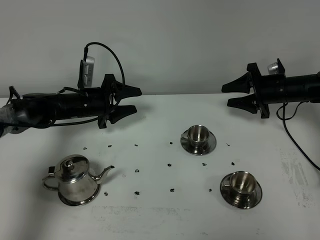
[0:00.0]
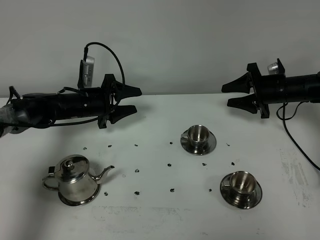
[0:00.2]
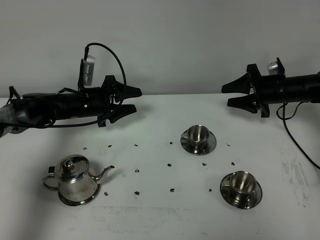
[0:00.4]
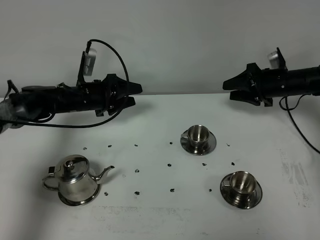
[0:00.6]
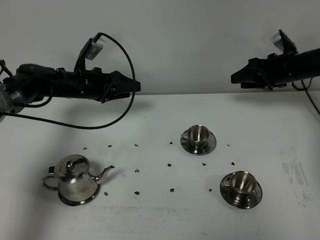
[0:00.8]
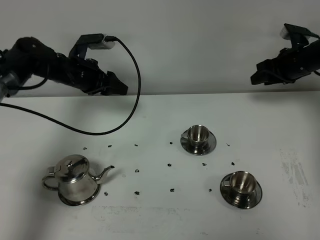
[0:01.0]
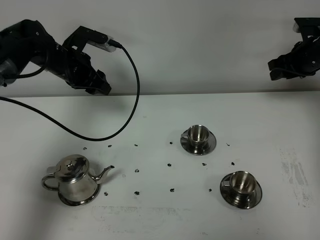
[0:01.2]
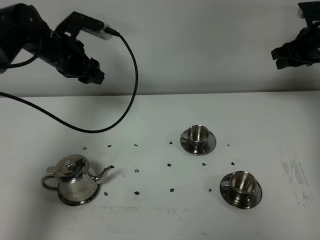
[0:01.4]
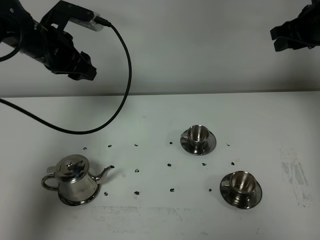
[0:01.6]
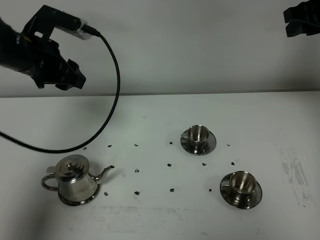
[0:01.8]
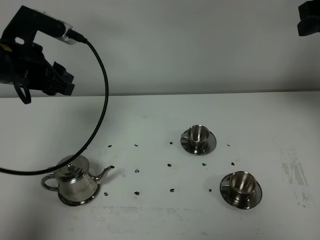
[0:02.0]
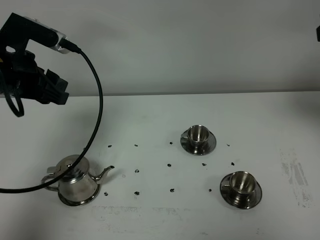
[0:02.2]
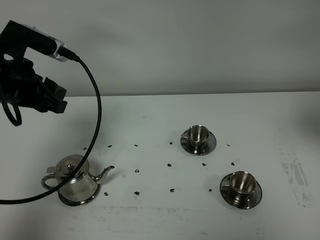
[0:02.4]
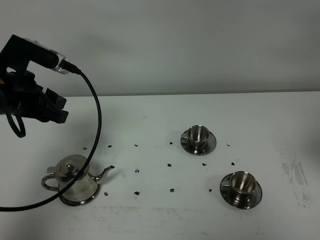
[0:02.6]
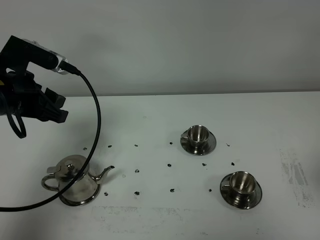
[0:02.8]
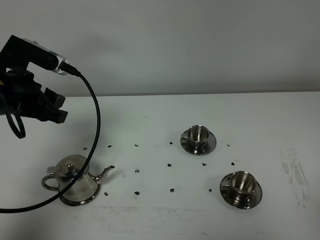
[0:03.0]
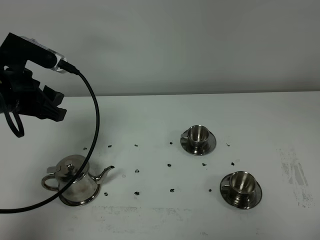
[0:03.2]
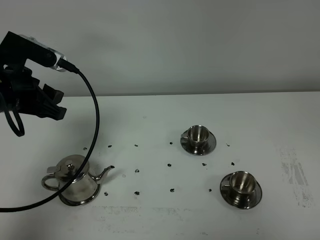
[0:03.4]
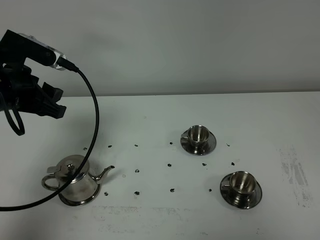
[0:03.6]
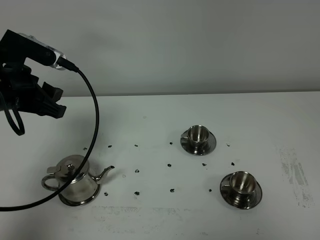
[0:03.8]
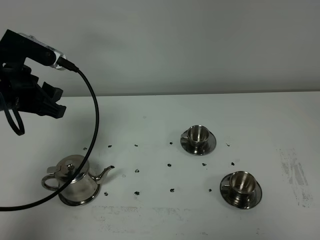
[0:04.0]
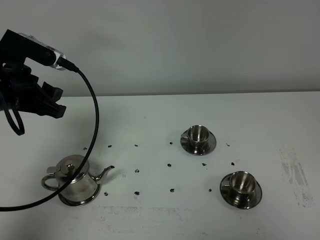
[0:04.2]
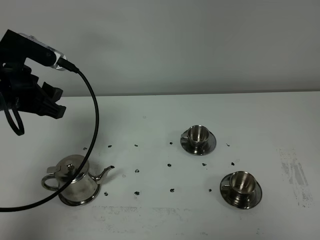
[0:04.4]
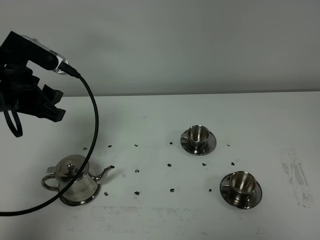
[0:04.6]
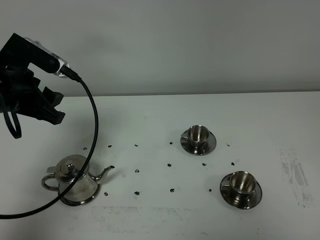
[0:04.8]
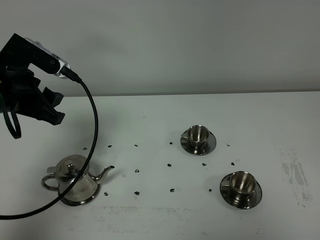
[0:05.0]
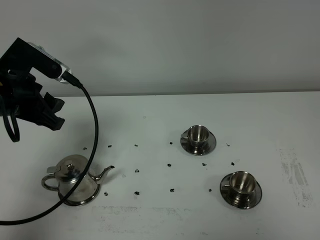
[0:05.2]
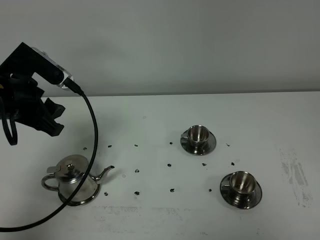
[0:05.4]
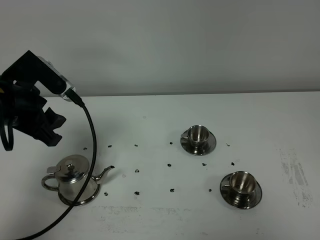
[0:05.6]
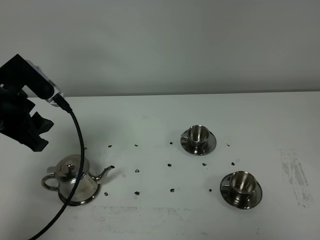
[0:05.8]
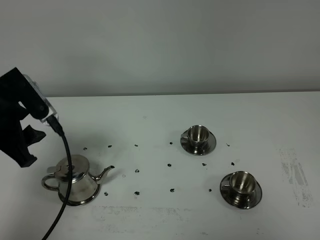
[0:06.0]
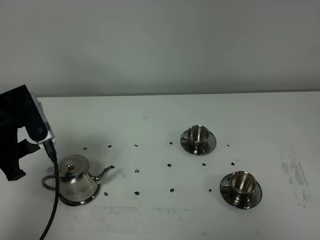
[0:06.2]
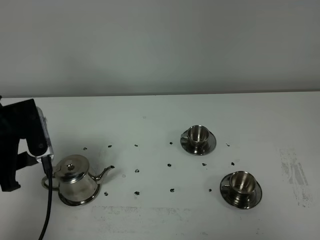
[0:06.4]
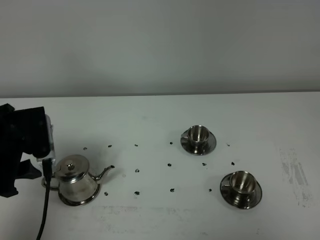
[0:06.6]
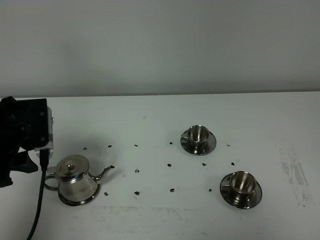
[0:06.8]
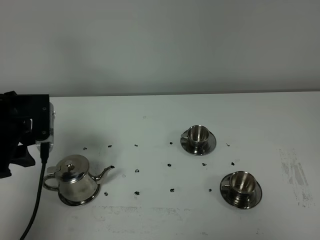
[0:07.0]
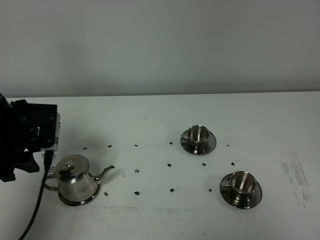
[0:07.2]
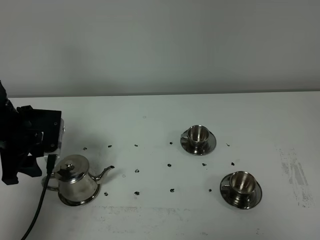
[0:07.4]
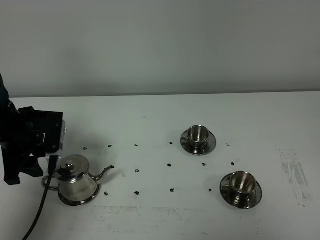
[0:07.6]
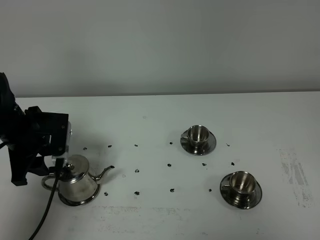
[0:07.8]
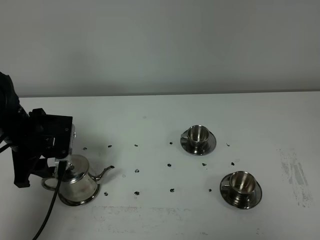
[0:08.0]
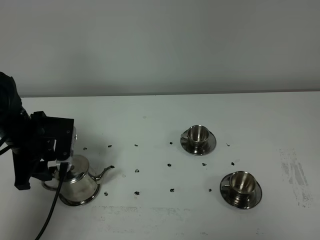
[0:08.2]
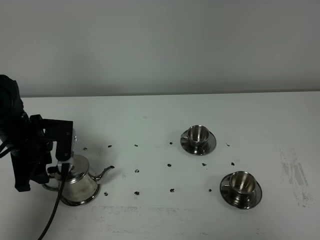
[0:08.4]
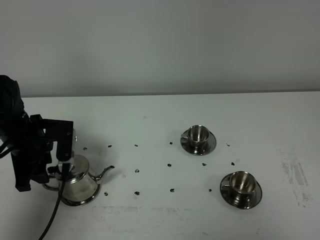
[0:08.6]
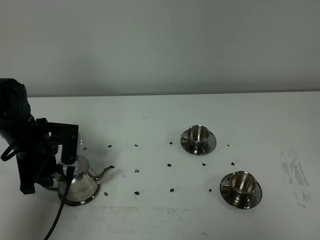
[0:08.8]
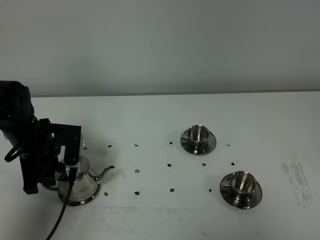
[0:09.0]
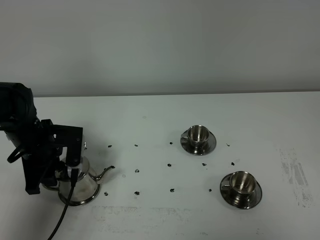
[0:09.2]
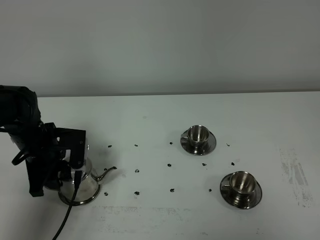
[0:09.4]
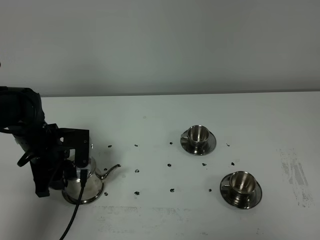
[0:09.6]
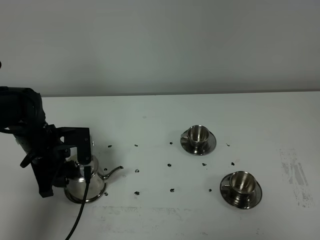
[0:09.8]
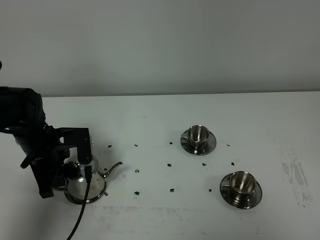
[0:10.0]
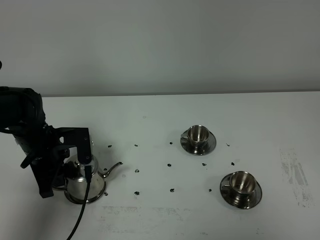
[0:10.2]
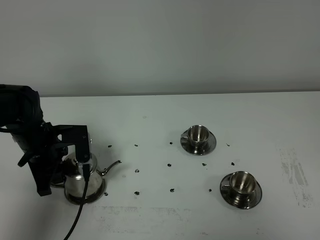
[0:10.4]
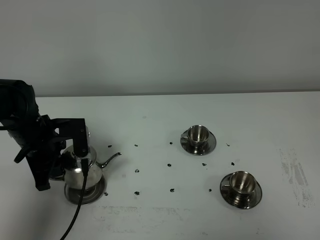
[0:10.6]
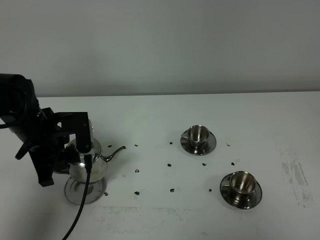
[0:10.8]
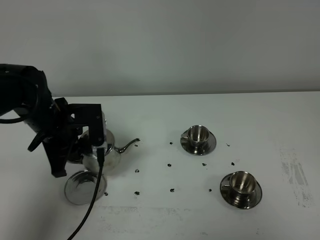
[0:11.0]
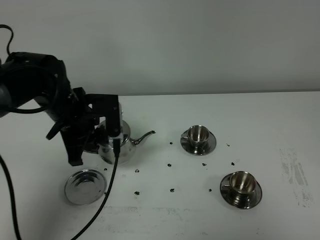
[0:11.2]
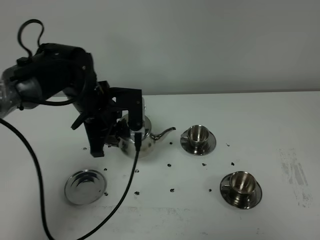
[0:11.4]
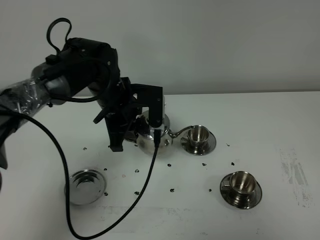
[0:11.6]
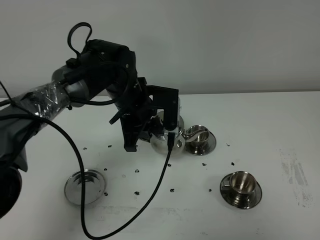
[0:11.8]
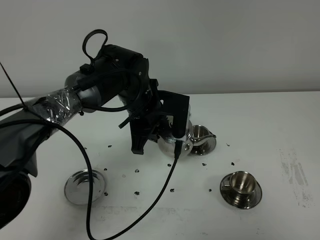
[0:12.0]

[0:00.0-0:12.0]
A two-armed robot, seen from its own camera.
Task of the whole recording: grasp the stainless steel teapot and pour the tea into the two stainless steel teacups one by one, put the stainless steel teapot back in its original place.
Step, 0:00.0 to 0:10.4: Pick up the teapot with the left gripper.
0:00.0 to 0:01.6: Both grippers move upward, roughly 20 cm.
0:01.6 to 0:03.0: The left gripper goes about 10 cm backward. Meanwhile the right gripper travels backward by about 40 cm.
0:06.0 to 0:07.6: The left gripper travels downward and forward by roughly 10 cm.
0:07.6 to 0:09.0: There are only small adjustments of the grippers.
0:09.0 to 0:10.4: The left gripper closes.
0:10.4 to 0:12.0: The left gripper travels to the right by some 20 cm.

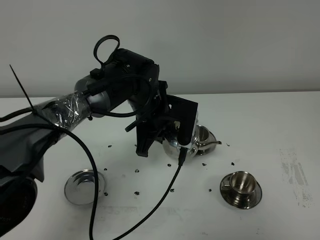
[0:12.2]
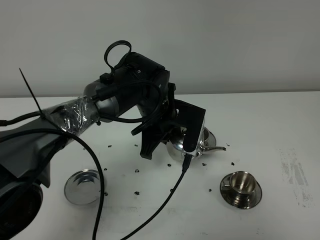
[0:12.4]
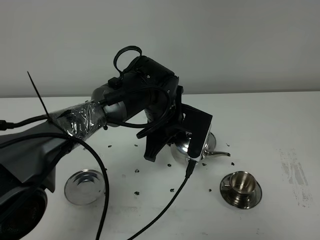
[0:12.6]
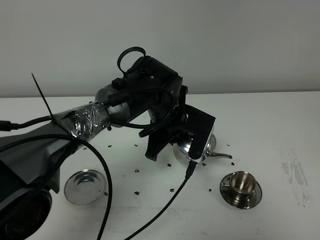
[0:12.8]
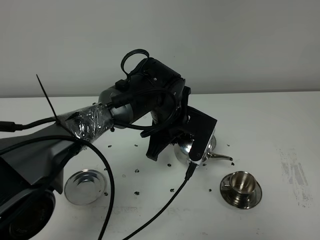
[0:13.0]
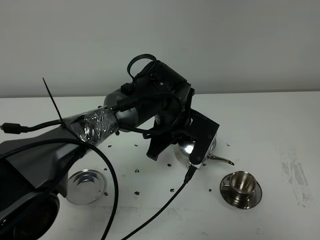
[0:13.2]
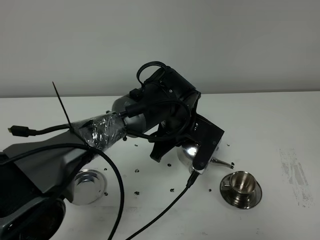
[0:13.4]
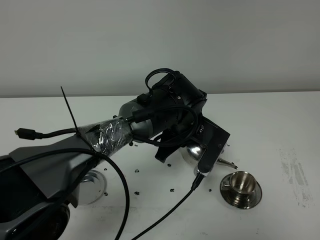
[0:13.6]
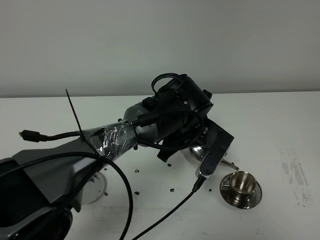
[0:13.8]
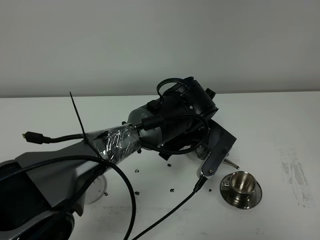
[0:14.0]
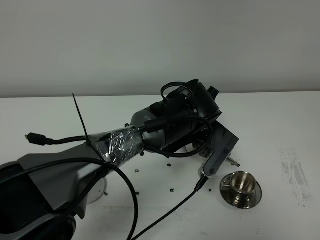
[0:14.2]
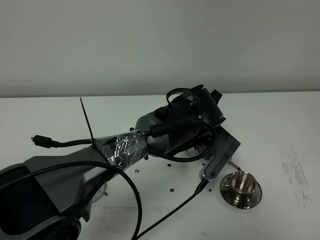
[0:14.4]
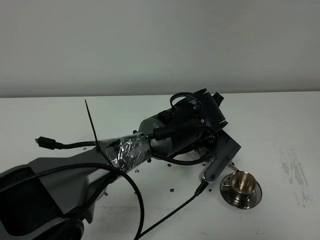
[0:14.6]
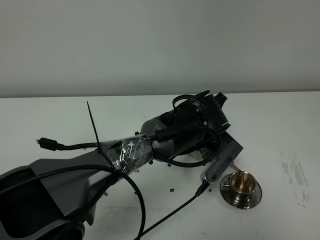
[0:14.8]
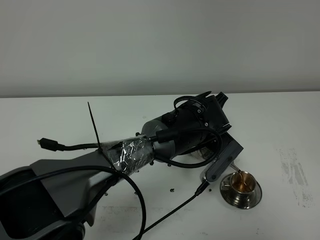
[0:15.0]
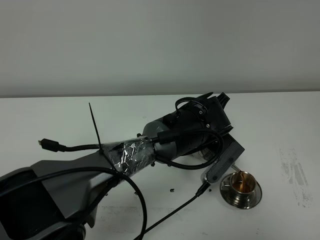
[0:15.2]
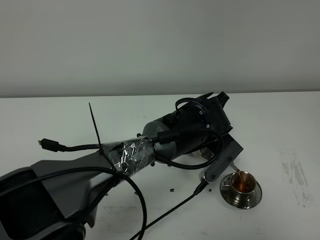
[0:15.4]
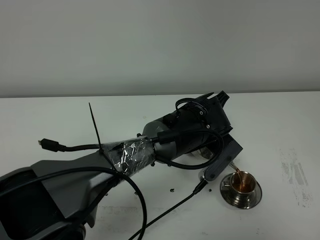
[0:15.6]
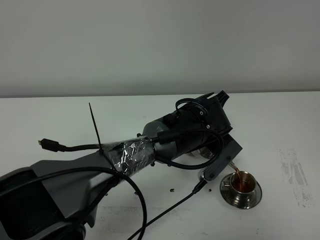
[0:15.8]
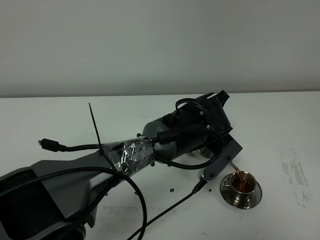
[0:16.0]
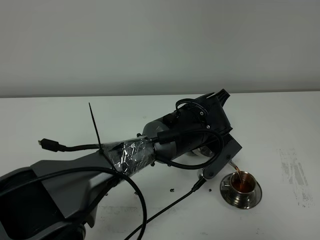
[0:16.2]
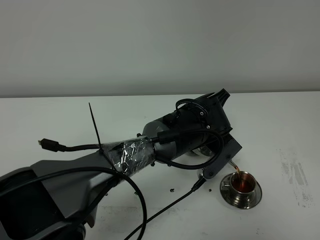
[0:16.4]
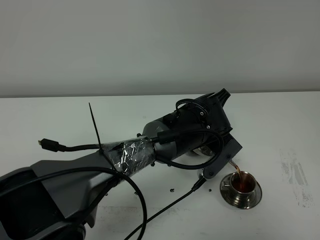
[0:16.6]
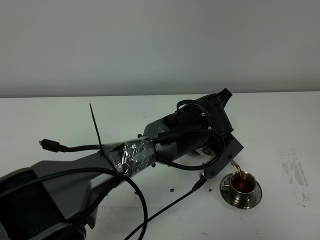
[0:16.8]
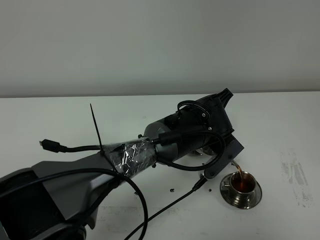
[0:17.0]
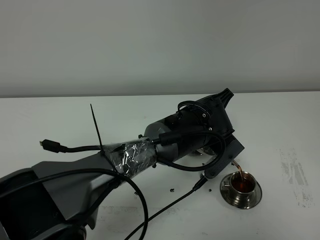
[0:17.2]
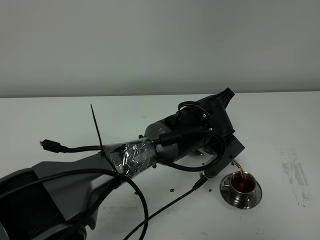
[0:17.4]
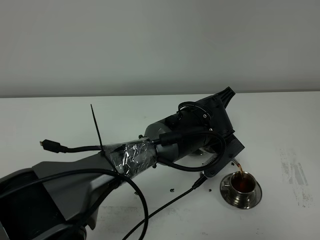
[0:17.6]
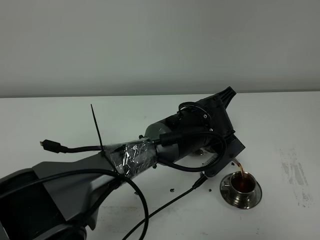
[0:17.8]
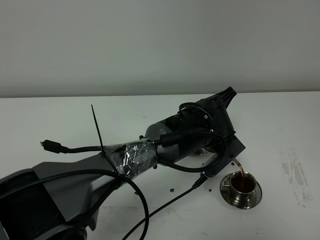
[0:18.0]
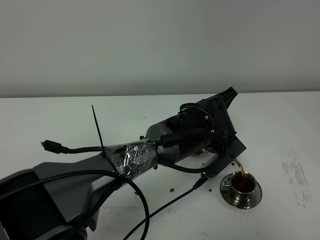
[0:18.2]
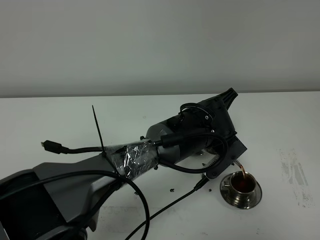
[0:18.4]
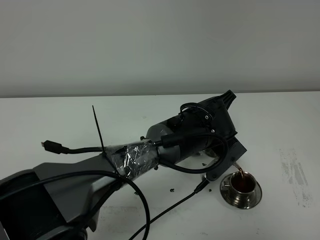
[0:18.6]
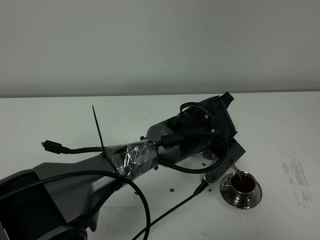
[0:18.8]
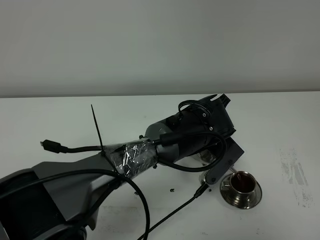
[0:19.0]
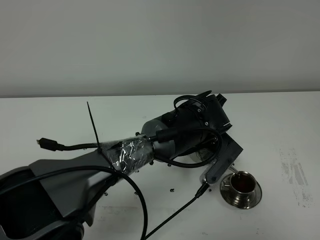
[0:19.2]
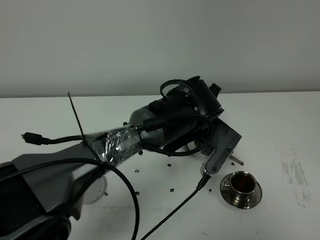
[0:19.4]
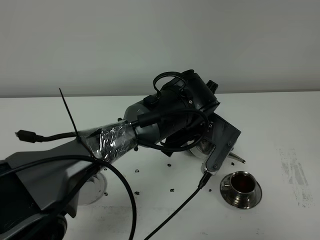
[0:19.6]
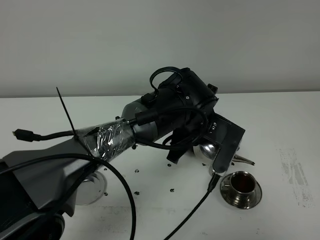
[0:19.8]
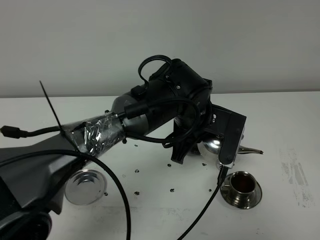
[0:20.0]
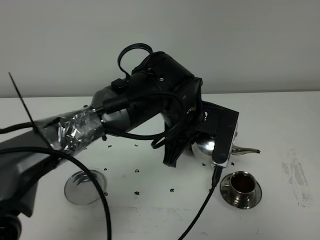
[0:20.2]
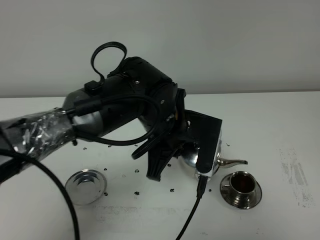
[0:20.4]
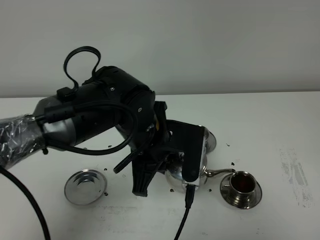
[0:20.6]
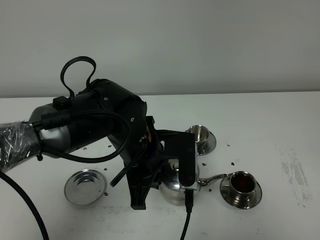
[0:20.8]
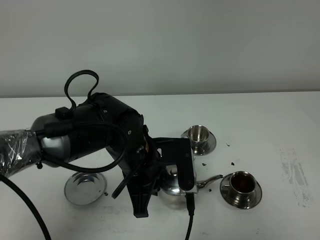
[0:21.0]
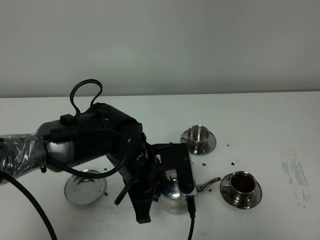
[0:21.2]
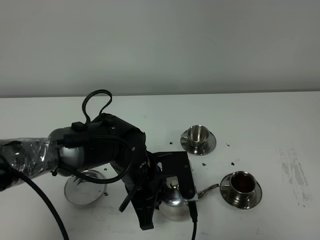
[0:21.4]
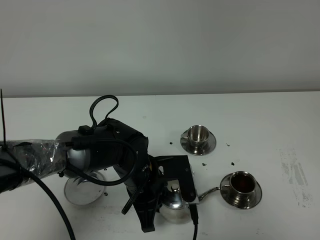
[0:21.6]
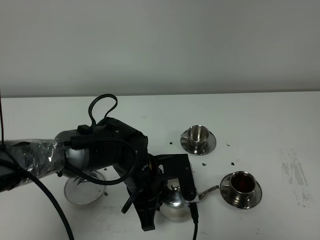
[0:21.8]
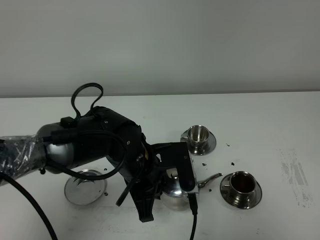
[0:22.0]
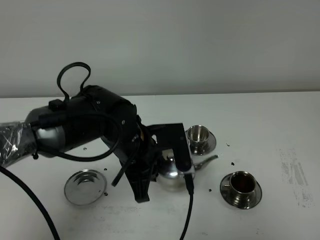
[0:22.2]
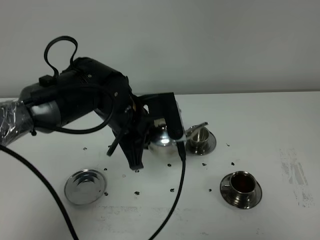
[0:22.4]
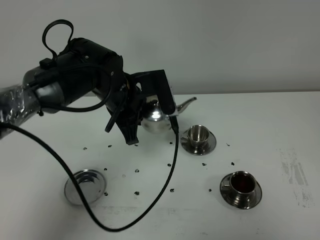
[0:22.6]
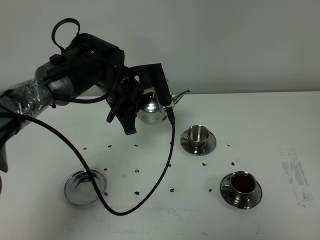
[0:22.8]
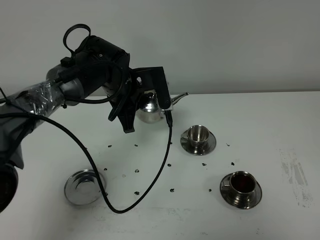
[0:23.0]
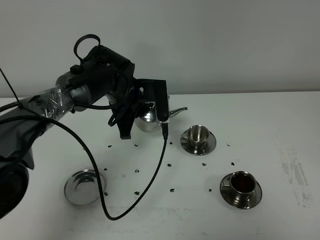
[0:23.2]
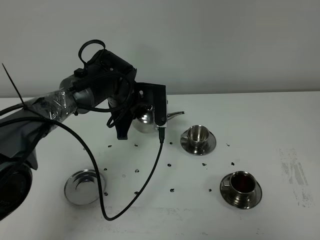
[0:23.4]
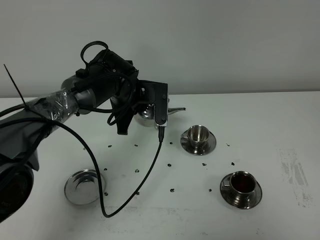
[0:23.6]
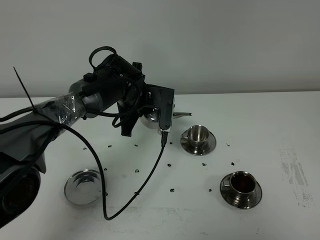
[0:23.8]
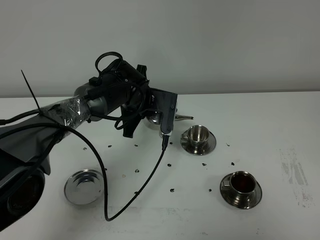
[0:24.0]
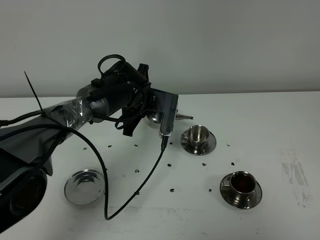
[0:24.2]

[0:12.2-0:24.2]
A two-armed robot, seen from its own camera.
Task of the whole recording: grasp the stainless steel teapot and pour the tea into the two stainless steel teacups one by one, put the stainless steel teapot back in its original place.
Step, 0:12.2 to 0:19.4: Pour tea into the teacup with the left gripper.
0:12.2 to 0:13.8: The left gripper goes approximately 5 cm to the right.
0:13.8 to 0:15.2: There are only small adjustments of the grippers.
0:15.2 to 0:16.6: Both grippers stay about where they are.
0:16.6 to 0:18.2: Both grippers stay about where they are.
0:19.8 to 0:21.2: The left gripper moves to the left and backward, approximately 10 cm.
0:21.2 to 0:22.6: The left gripper goes approximately 15 cm forward and upward.
0:22.6 to 0:24.2: The left gripper shifts about 10 cm downward and forward.
